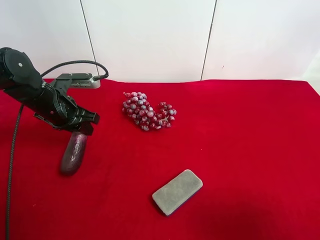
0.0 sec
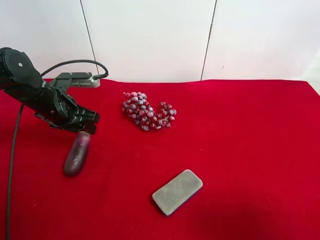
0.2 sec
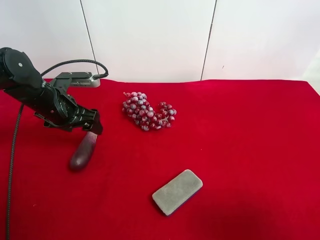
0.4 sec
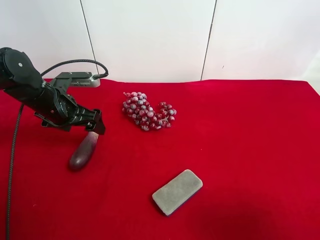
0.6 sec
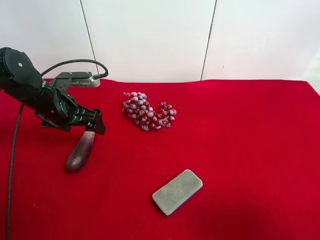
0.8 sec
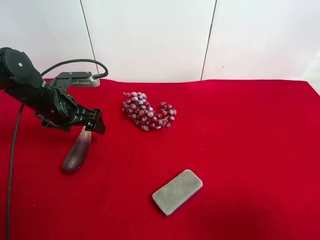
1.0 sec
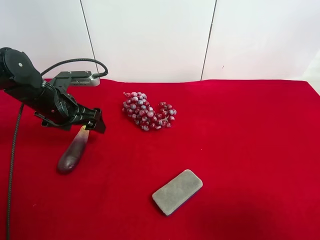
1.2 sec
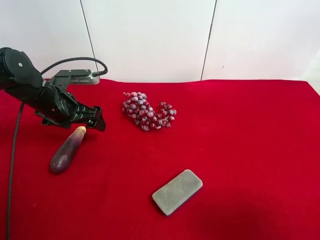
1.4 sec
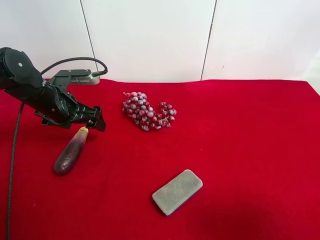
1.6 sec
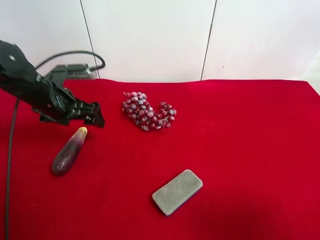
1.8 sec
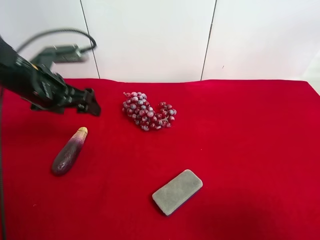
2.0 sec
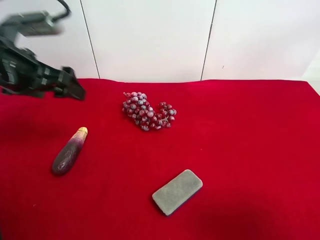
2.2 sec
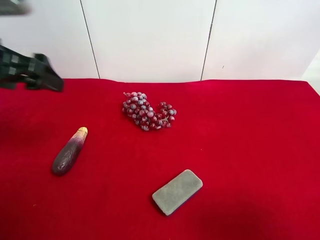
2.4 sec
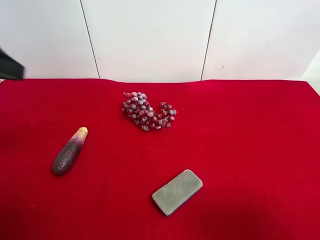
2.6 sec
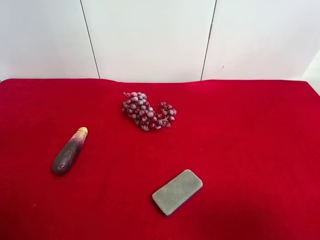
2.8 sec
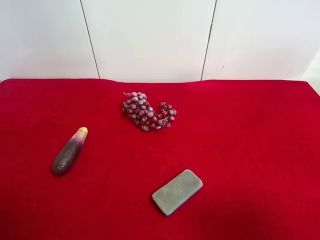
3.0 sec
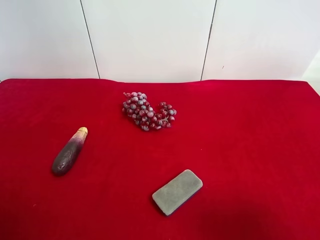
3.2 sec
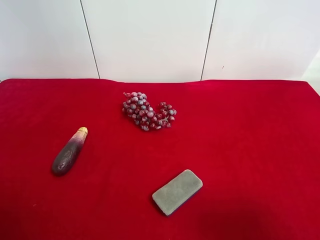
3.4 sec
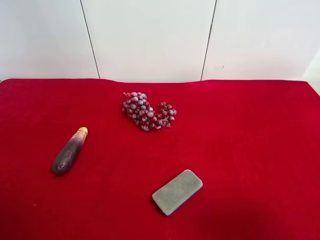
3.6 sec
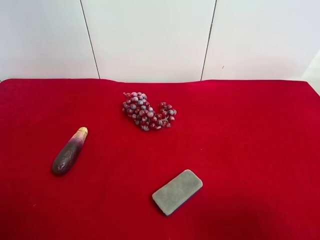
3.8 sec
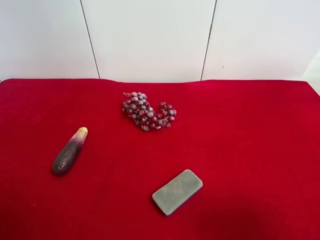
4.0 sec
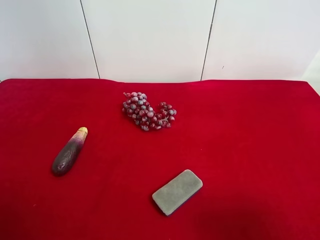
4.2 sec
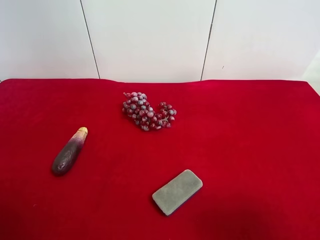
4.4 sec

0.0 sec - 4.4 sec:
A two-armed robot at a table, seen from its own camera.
Task of the whole recording: use the right gripper to pick up the item and transfer it from the right gripper to the left gripper.
0.0 sec - 1.4 sec: The left gripper opens its fingers.
1.4 sec - 3.0 sec: The left gripper goes some 30 cm backward and upward.
